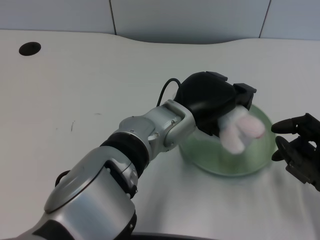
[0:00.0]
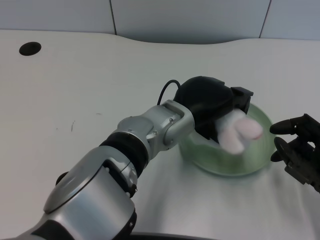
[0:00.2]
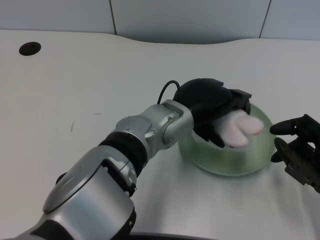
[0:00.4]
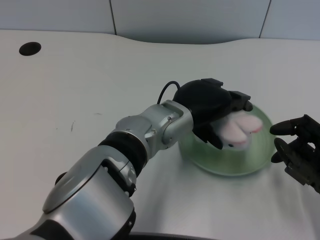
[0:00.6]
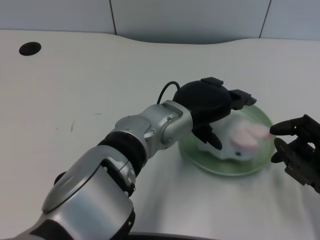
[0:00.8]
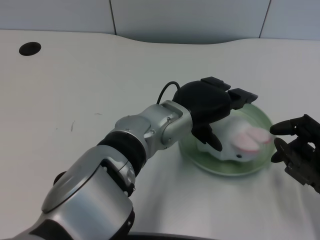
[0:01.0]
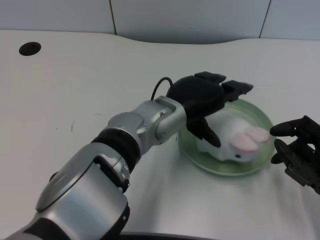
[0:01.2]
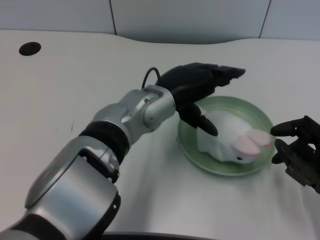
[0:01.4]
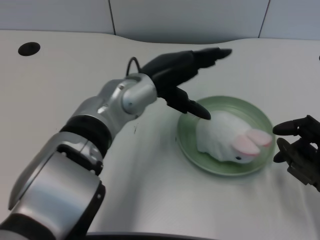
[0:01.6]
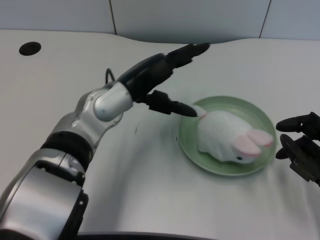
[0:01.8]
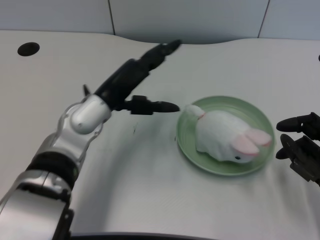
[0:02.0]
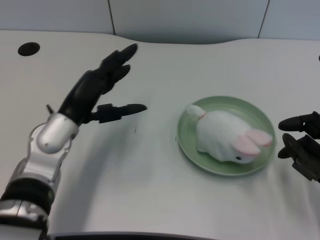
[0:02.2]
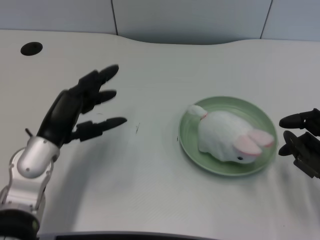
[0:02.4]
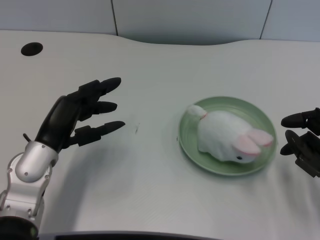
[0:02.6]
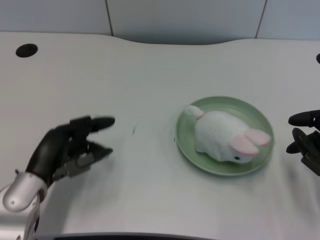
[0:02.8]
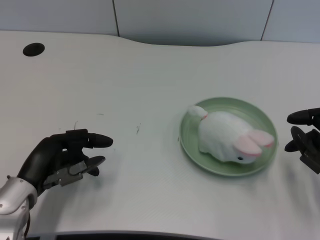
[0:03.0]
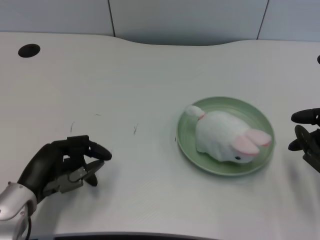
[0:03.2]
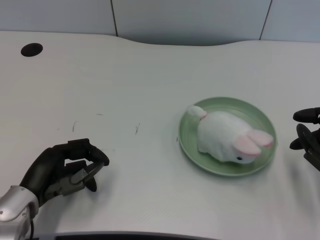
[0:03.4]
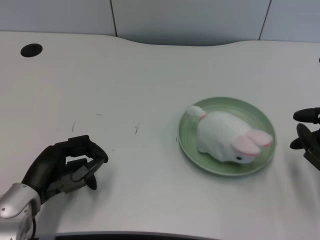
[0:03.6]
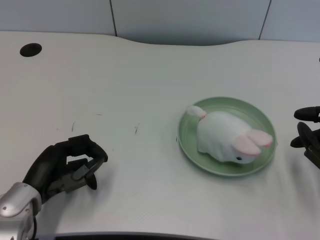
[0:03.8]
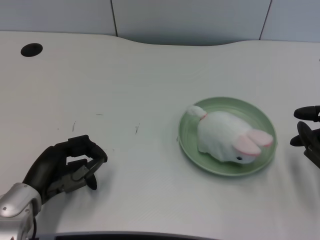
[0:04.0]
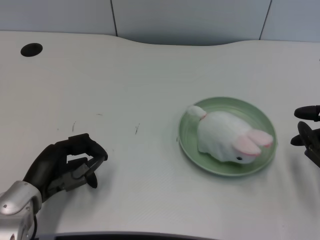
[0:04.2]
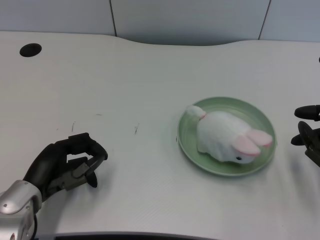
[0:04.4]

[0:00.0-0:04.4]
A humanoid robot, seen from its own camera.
Task of the whole recording: pick up the rabbit doll from the table and place it on the plate.
0:01.4 to 0:03.0: The left hand shifts about 25 cm to the left, downward and backward.
0:03.0 to 0:04.4: The hands move only a little.
